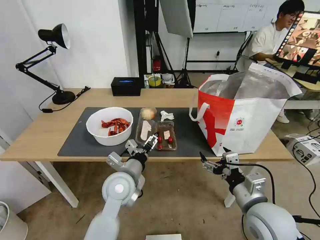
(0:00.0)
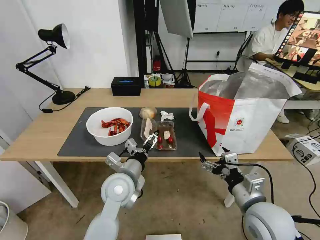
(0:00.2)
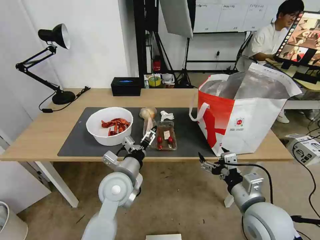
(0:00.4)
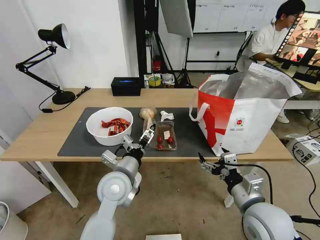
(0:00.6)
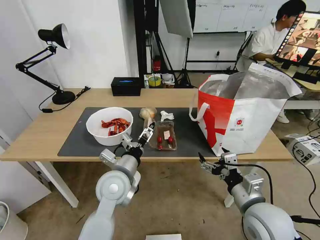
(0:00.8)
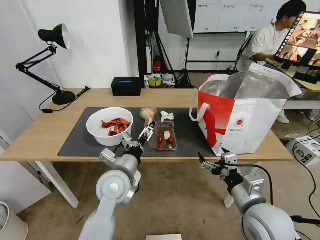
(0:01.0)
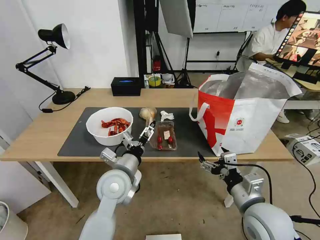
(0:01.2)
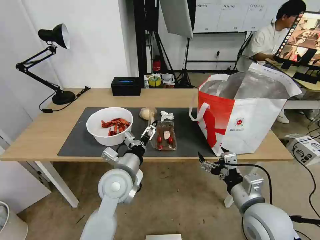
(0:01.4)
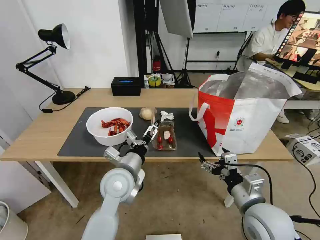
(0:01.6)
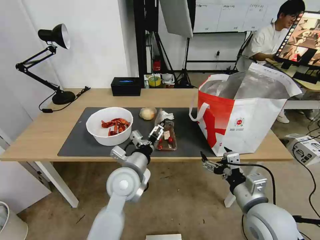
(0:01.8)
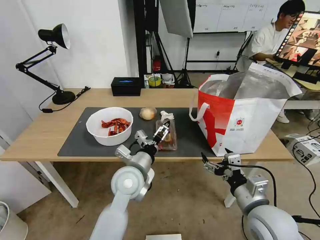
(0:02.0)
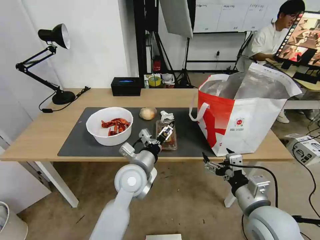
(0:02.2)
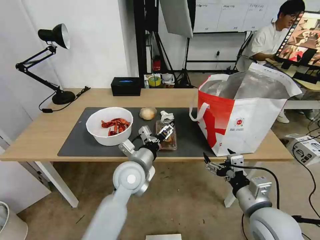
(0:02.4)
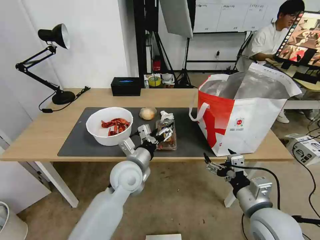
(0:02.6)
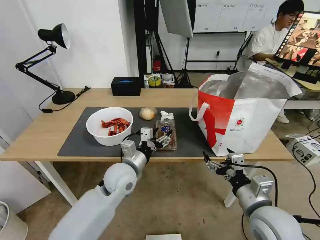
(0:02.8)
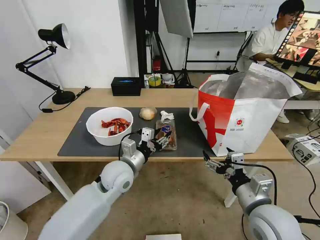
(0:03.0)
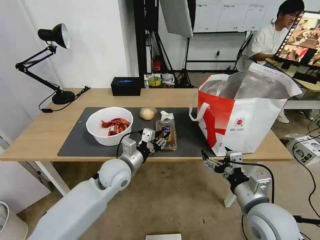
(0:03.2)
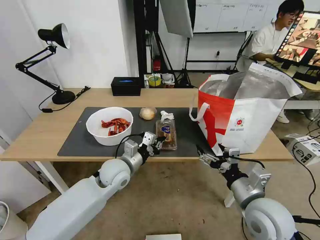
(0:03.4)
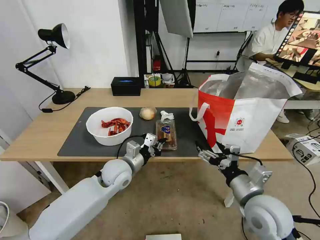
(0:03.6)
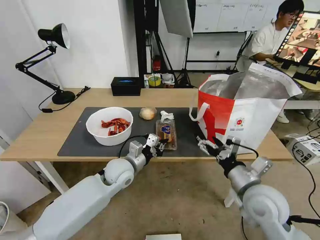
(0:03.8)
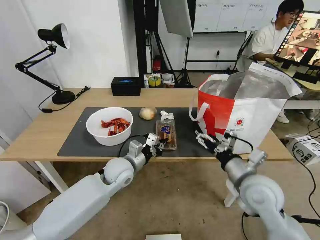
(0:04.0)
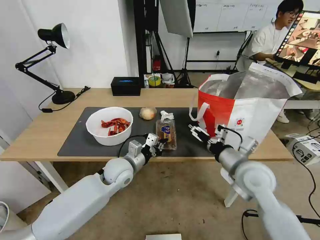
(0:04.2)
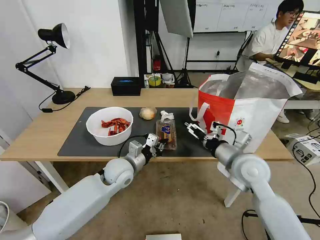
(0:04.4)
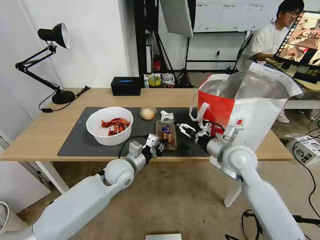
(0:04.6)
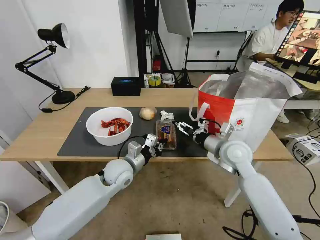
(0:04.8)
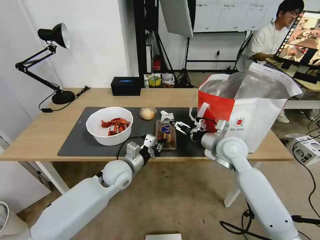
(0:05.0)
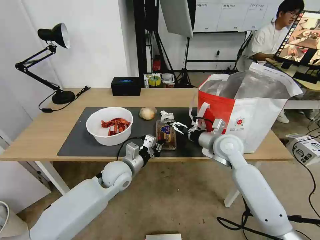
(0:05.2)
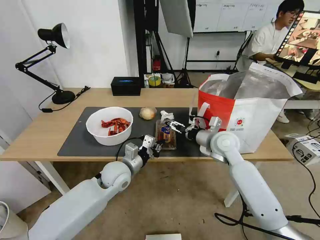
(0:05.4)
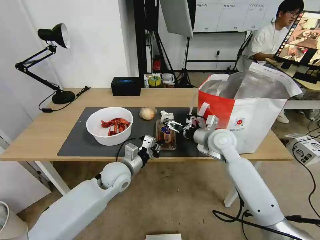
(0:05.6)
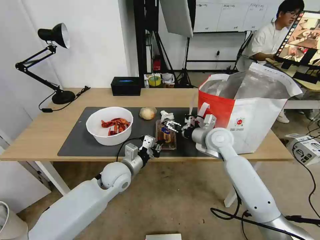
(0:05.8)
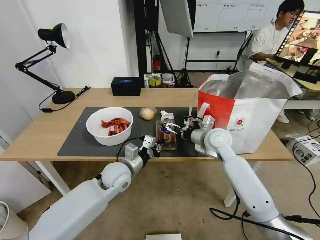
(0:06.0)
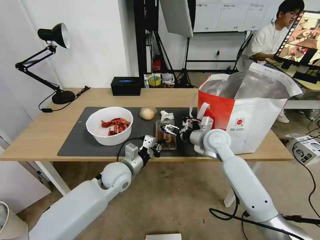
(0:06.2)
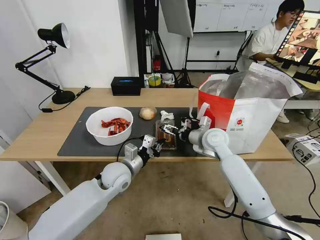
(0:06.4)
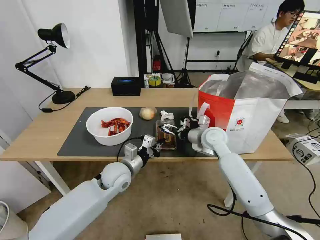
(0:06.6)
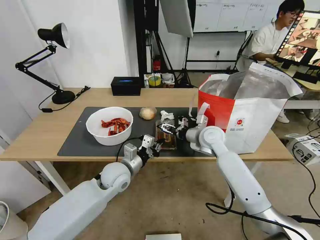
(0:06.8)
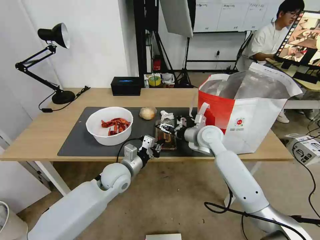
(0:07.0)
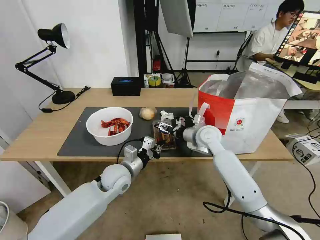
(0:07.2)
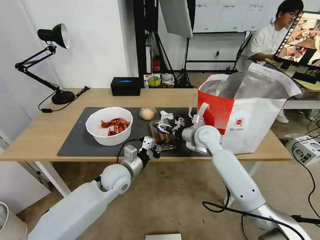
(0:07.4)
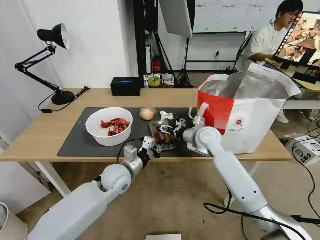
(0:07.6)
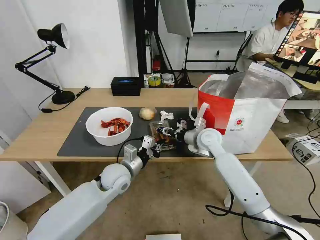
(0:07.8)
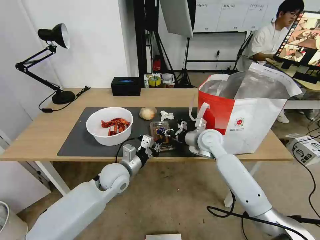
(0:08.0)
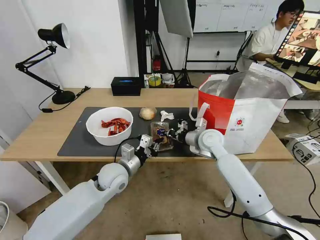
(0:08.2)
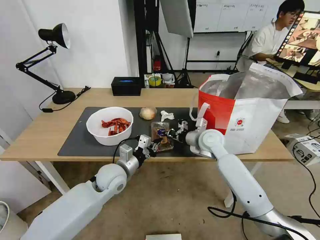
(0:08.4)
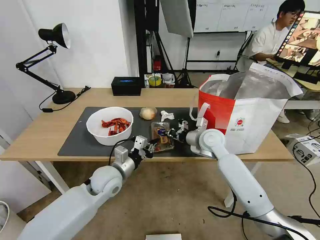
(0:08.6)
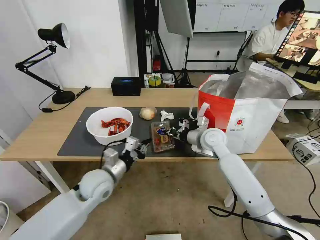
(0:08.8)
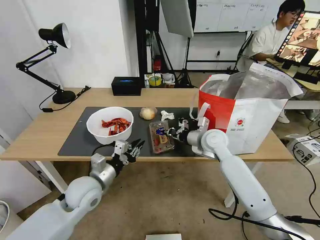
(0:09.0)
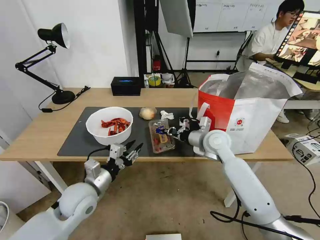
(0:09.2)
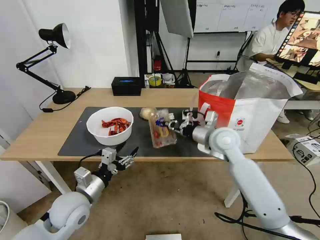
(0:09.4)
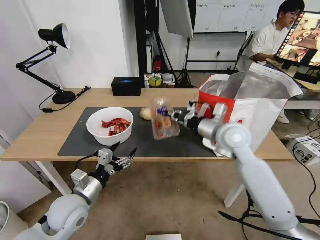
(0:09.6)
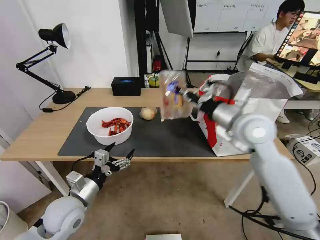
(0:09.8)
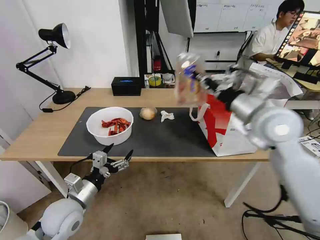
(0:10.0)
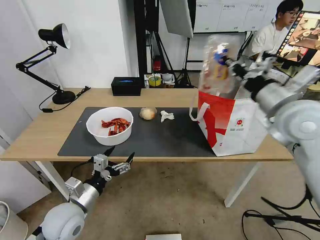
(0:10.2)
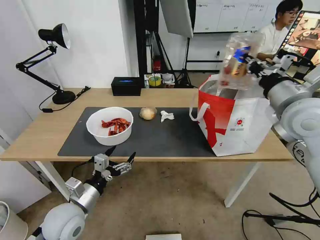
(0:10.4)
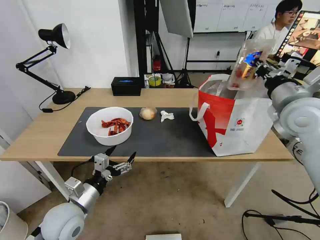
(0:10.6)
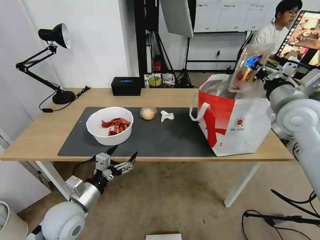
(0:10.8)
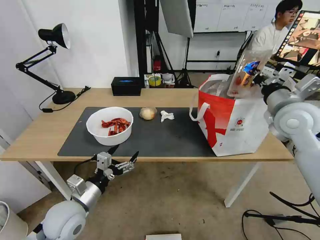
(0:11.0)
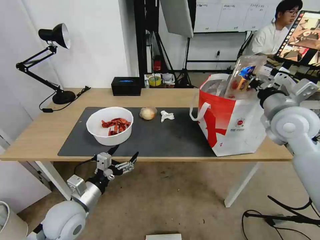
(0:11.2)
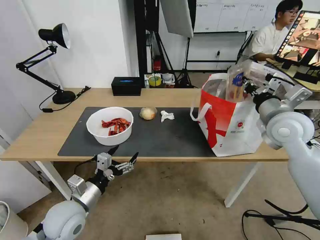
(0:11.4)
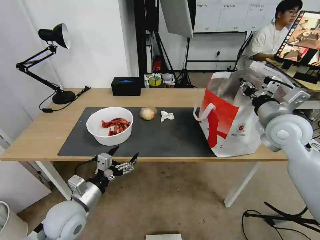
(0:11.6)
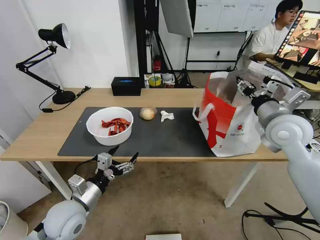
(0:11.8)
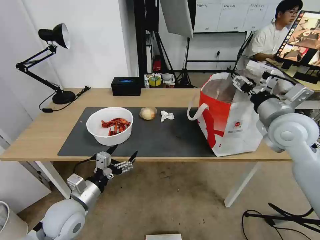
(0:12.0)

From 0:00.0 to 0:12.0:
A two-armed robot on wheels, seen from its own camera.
Task of the whole recording: Pick up the trash from the table and place it into the takeout bag.
From 0:00.0 to 0:01.6: There are only small adjustments of the grippers.
From 0:01.6 to 0:03.0: The left gripper closes up.
From 0:03.0 to 0:04.4: The left gripper closes its fingers. The right gripper moves forward, approximately 15 cm.
From 0:04.4 to 0:06.0: The right gripper goes roughly 10 cm forward.
From 0:06.0 to 0:07.6: The grippers move only a little.
From 0:07.6 to 0:09.0: The left gripper shifts roughly 10 cm to the left and backward. Meanwhile the right gripper closes up.
From 0:09.0 to 0:10.4: The right gripper travels upward, to the right and backward by approximately 25 cm. The left gripper shifts roughly 5 cm backward, and opens.
From 0:10.4 to 0:12.0: The right gripper moves downward, roughly 5 cm, and opens up.

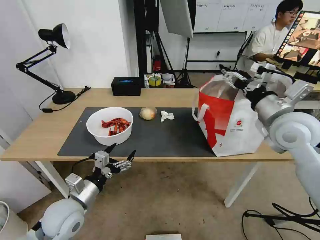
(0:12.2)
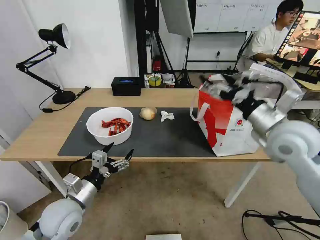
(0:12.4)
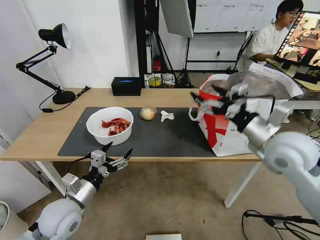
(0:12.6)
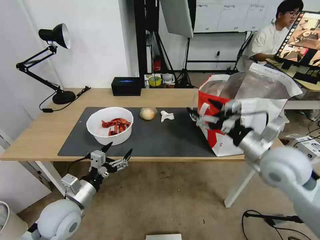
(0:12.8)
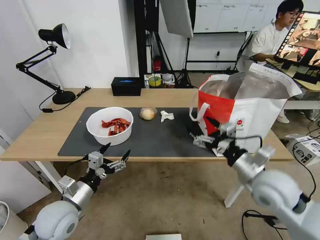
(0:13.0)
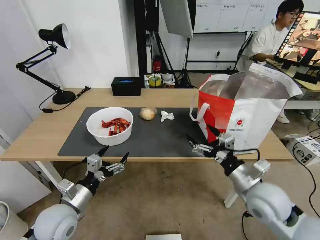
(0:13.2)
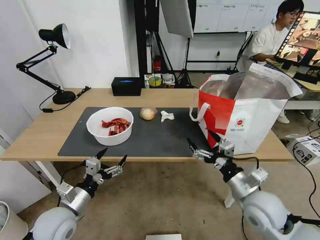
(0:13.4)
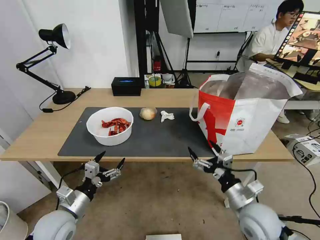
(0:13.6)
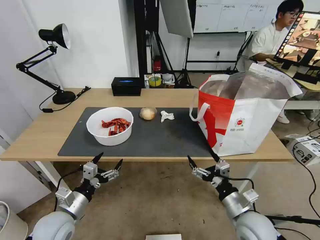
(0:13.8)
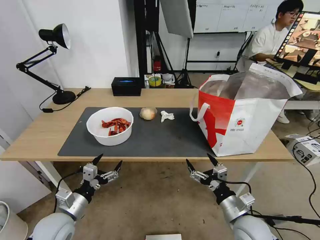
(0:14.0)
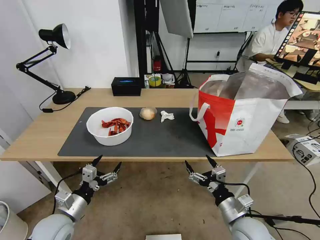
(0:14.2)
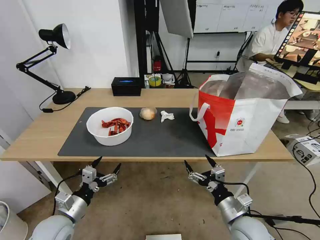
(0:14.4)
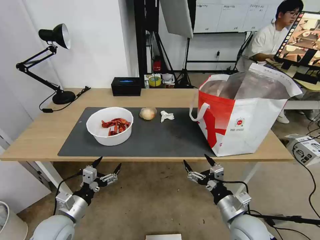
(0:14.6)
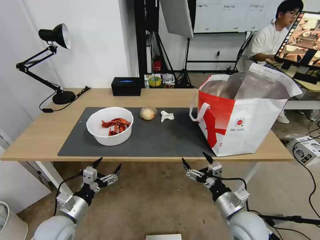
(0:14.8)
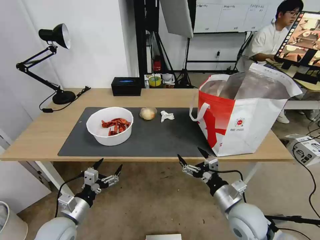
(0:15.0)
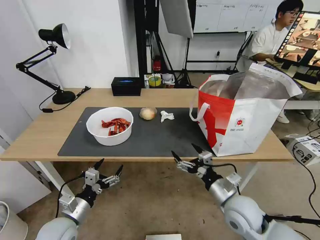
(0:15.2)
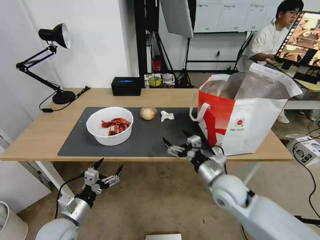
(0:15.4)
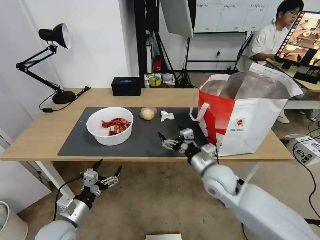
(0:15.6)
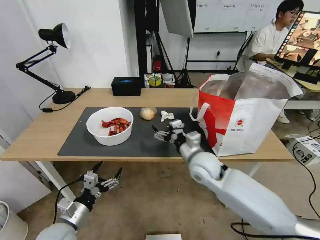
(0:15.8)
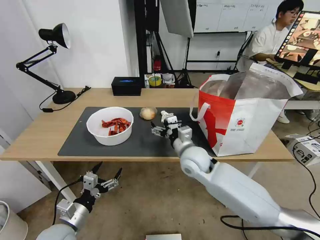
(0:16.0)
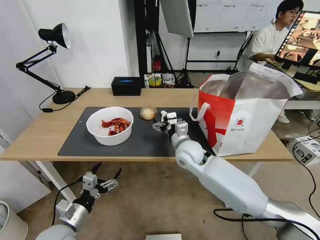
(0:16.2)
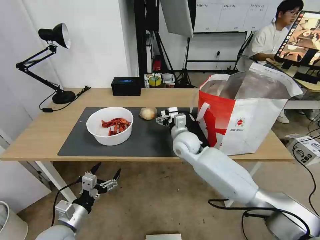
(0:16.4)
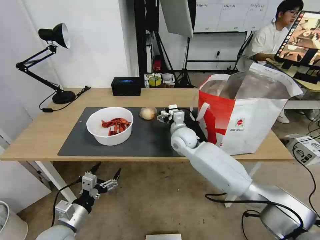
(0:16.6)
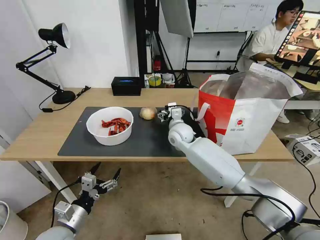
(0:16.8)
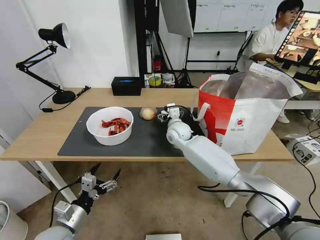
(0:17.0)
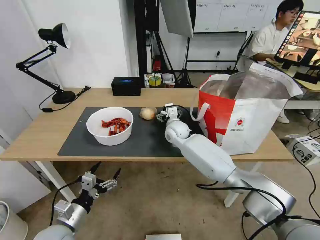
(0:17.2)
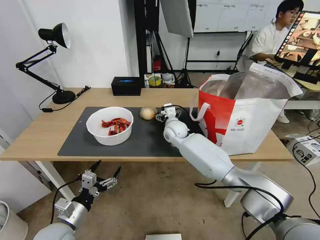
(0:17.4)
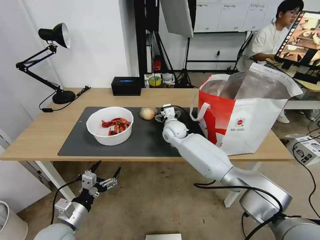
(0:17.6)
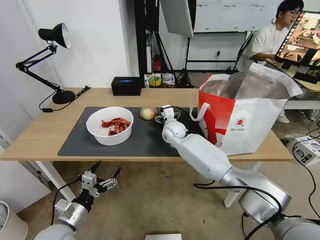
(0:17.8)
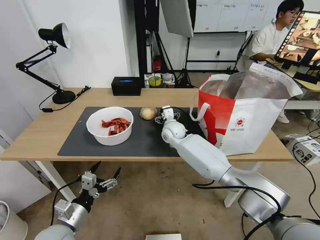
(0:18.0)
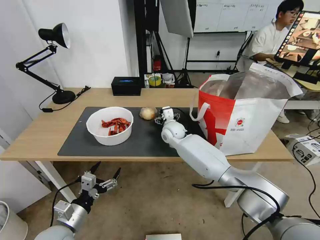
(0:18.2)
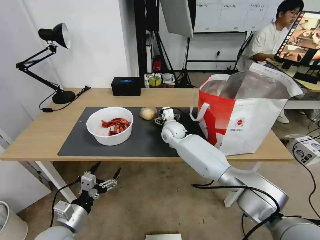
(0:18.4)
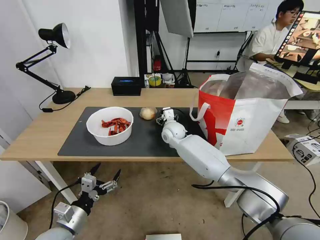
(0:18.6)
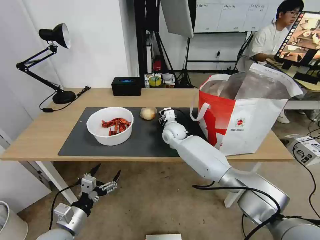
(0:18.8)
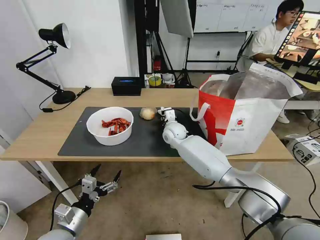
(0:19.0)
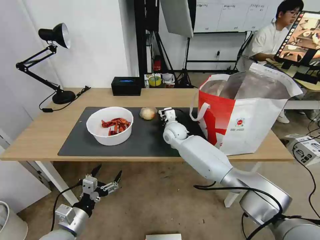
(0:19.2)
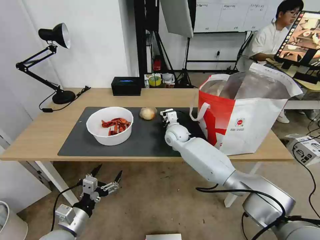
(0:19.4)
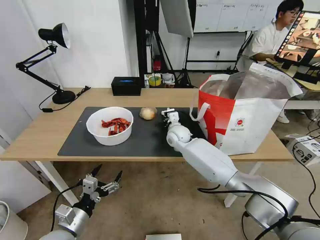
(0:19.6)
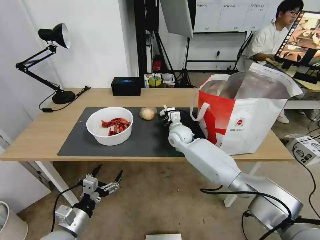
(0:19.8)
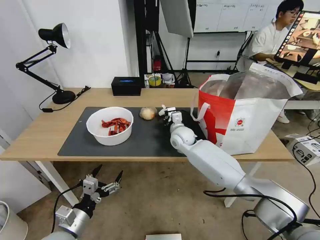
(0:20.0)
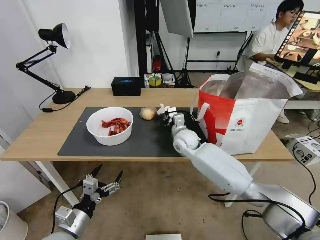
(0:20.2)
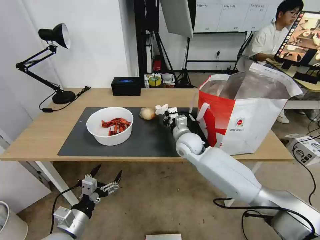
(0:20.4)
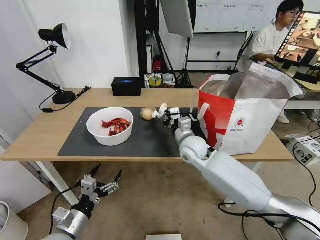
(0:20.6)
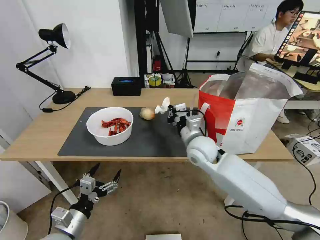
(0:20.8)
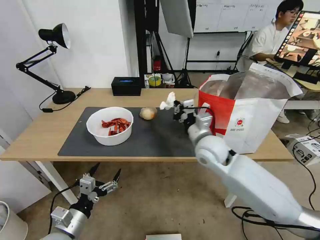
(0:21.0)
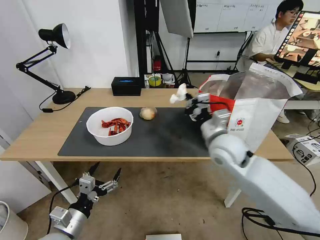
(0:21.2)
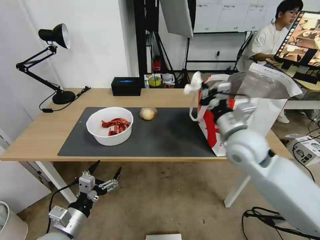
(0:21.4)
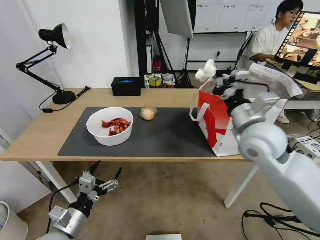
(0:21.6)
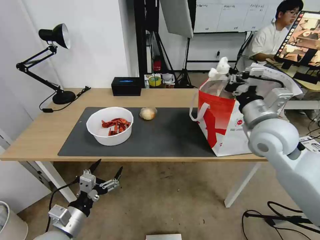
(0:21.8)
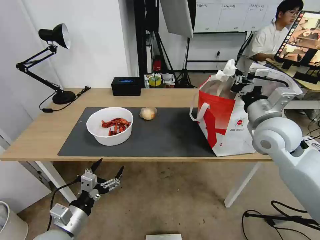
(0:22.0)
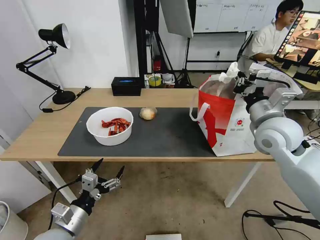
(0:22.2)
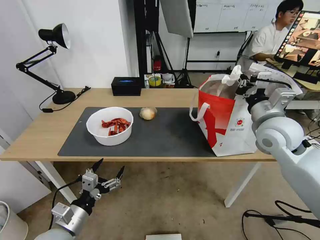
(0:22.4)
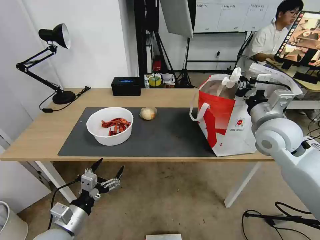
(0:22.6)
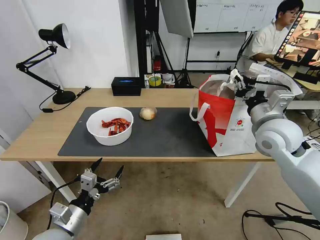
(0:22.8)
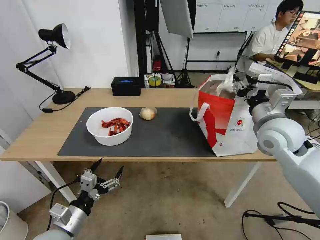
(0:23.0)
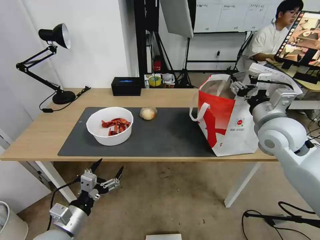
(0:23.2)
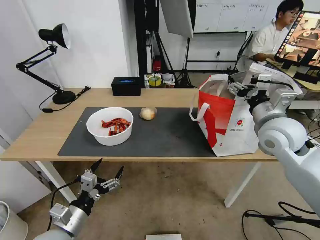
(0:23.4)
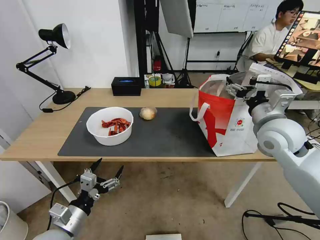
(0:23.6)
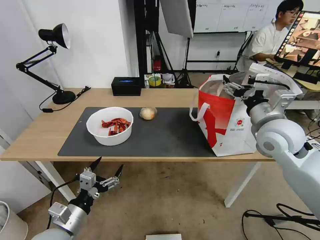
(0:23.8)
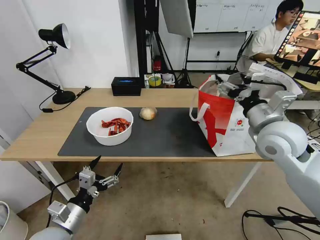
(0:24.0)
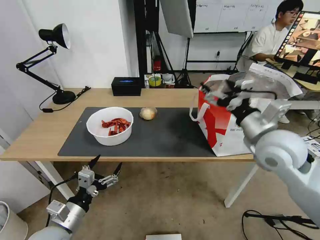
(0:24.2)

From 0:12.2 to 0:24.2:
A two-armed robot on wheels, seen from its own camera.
Task of the whole recording: Pick up the trash from the table and place it into the takeout bag.
From 0:12.2 to 0:13.8: The left gripper moves some 5 cm; the right gripper shifts about 30 cm downward and backward.
From 0:13.8 to 0:15.2: The right gripper shifts by about 5 cm.
From 0:15.2 to 0:16.6: The right gripper goes roughly 25 cm forward and to the left.
From 0:16.6 to 0:18.2: The right gripper shifts some 5 cm forward.
From 0:18.2 to 0:19.8: The right gripper closes up.
From 0:19.8 to 0:21.2: The right gripper heads backward, upward and to the right, covering approximately 20 cm.
From 0:21.2 to 0:22.6: The right gripper goes about 15 cm to the right and upward.
From 0:22.6 to 0:24.2: The right gripper moves backward, some 5 cm, and opens its fingers.
